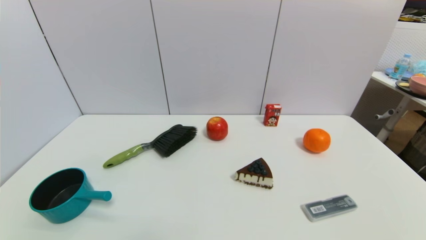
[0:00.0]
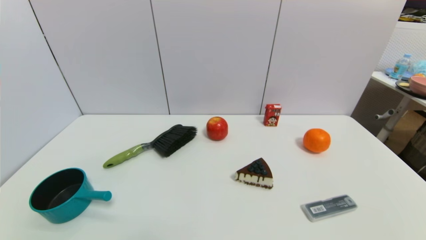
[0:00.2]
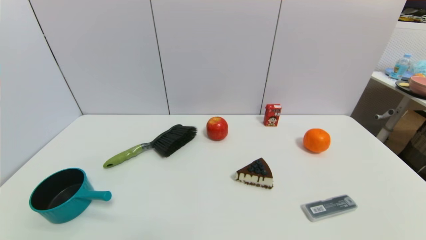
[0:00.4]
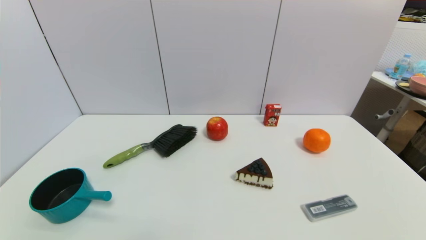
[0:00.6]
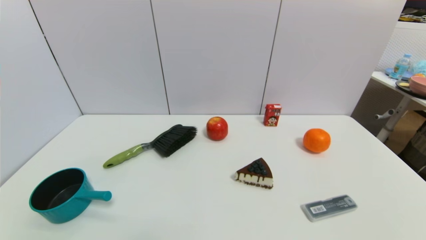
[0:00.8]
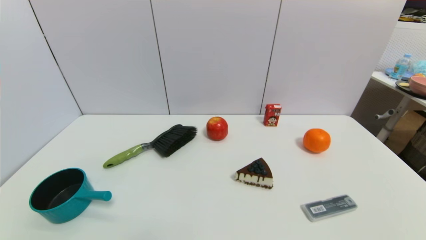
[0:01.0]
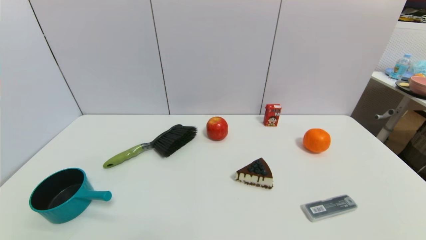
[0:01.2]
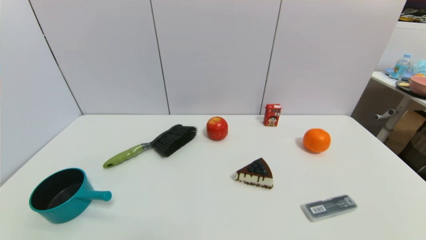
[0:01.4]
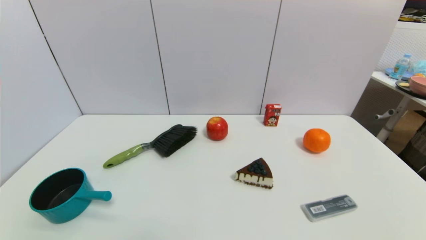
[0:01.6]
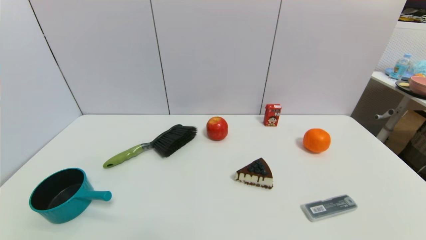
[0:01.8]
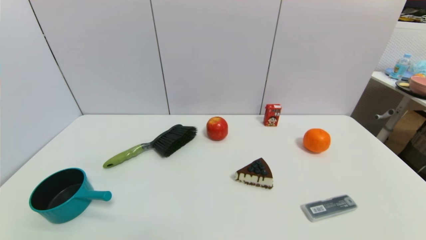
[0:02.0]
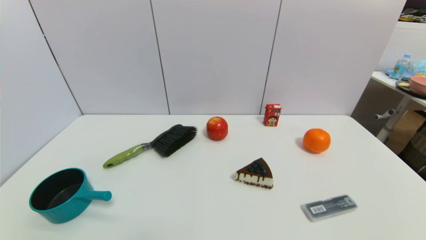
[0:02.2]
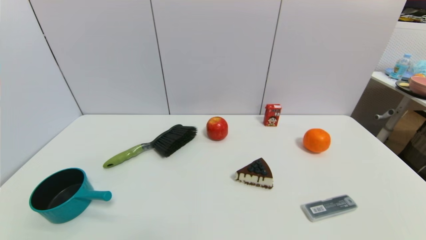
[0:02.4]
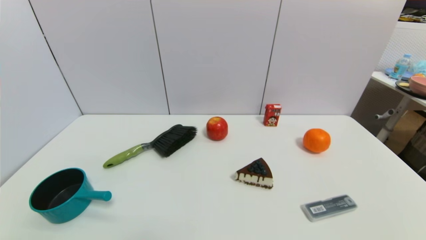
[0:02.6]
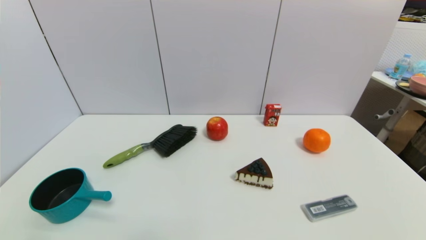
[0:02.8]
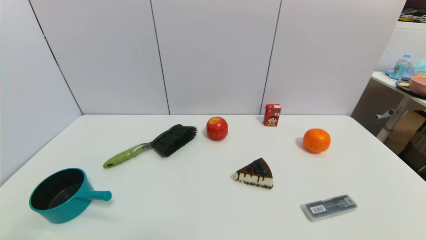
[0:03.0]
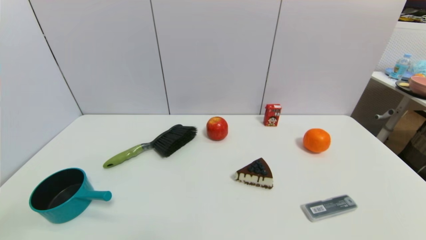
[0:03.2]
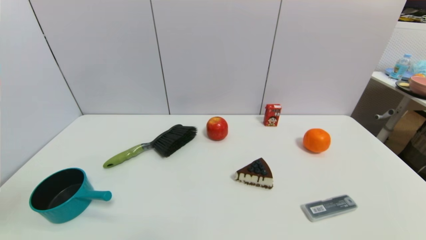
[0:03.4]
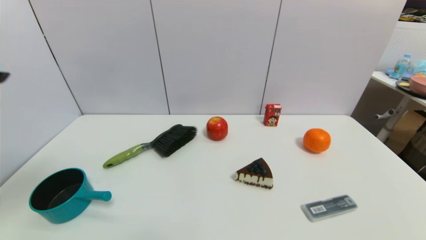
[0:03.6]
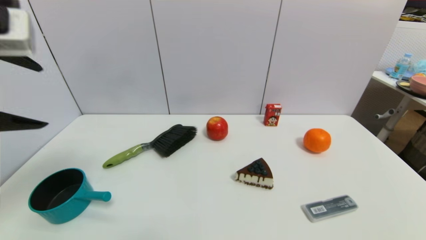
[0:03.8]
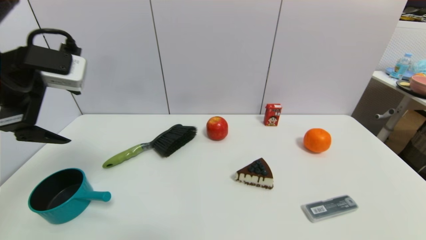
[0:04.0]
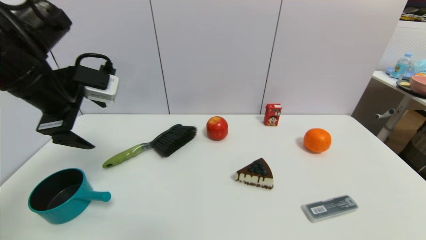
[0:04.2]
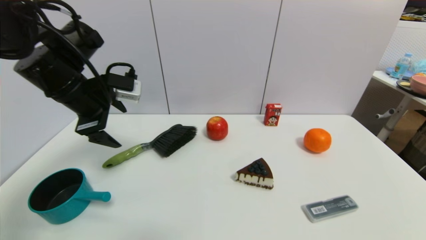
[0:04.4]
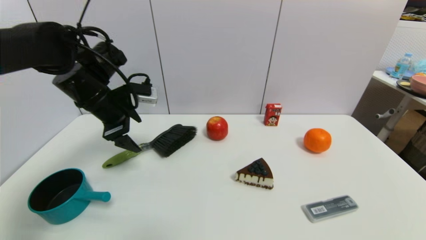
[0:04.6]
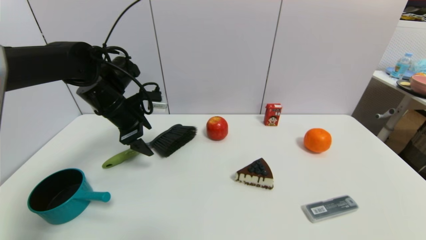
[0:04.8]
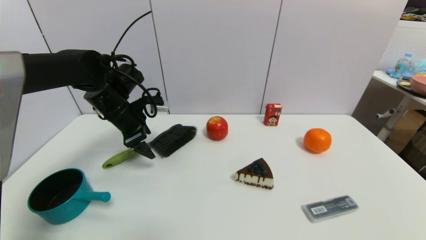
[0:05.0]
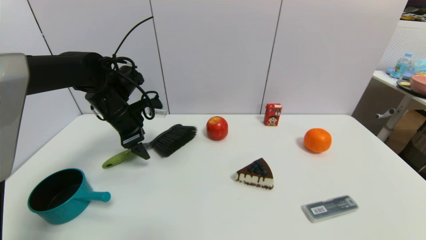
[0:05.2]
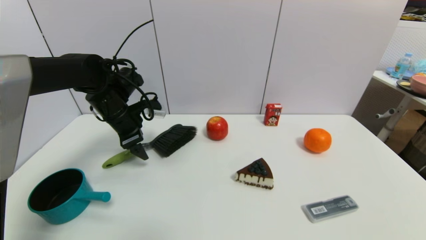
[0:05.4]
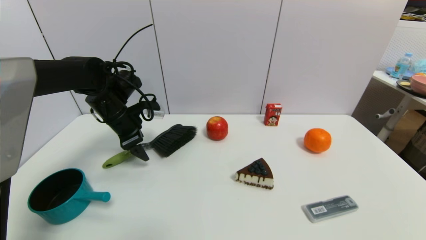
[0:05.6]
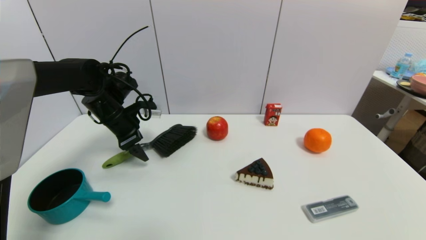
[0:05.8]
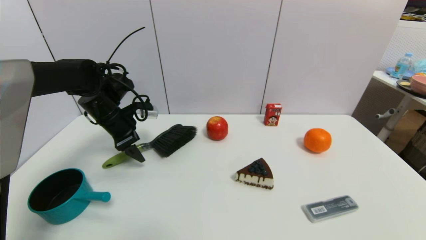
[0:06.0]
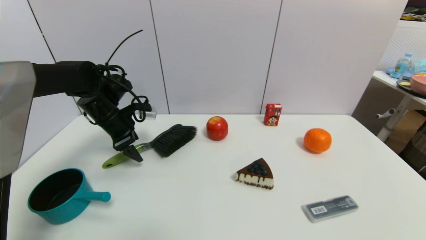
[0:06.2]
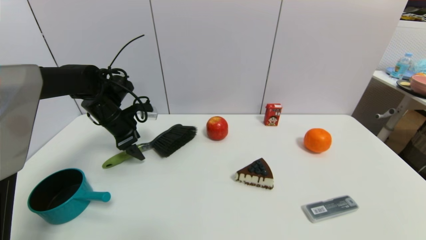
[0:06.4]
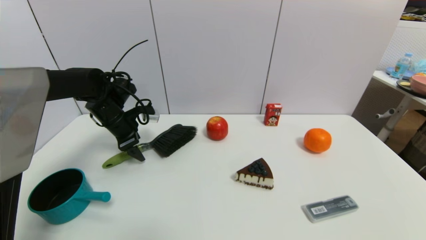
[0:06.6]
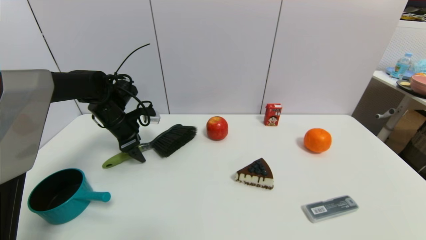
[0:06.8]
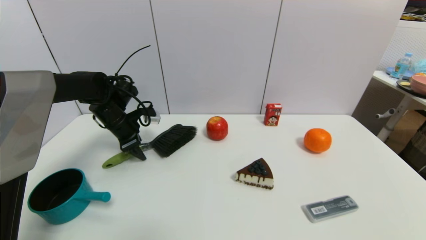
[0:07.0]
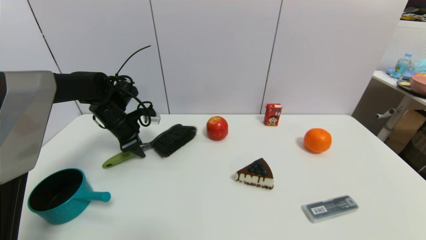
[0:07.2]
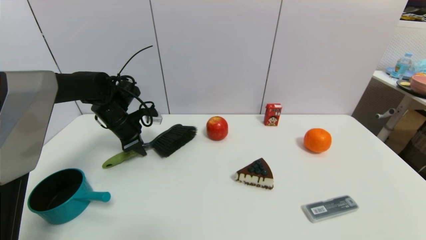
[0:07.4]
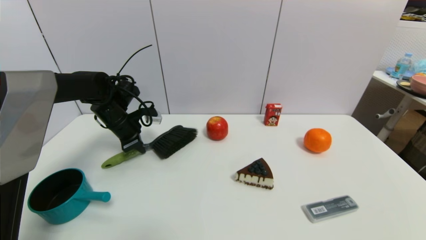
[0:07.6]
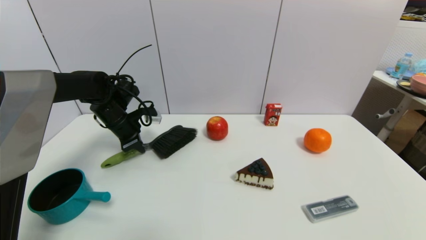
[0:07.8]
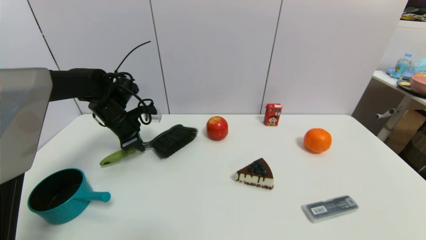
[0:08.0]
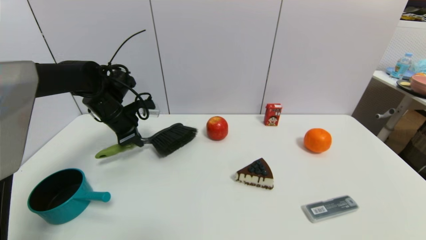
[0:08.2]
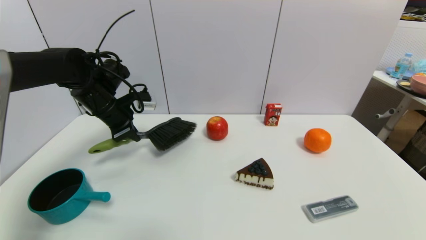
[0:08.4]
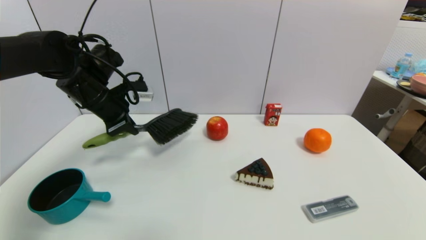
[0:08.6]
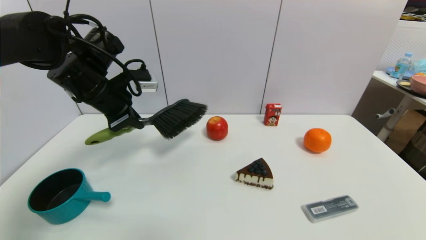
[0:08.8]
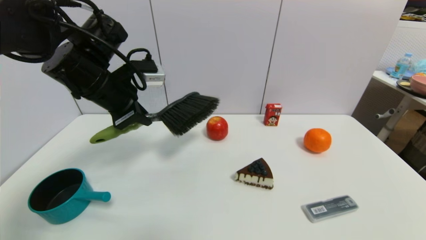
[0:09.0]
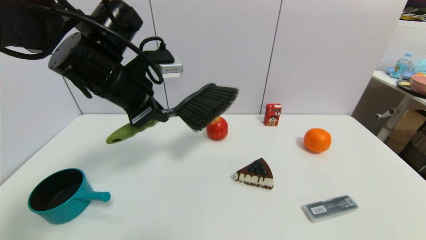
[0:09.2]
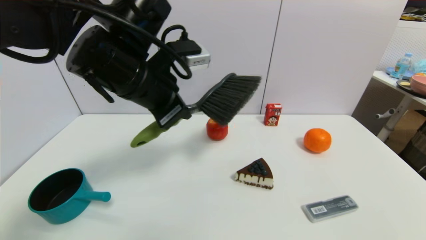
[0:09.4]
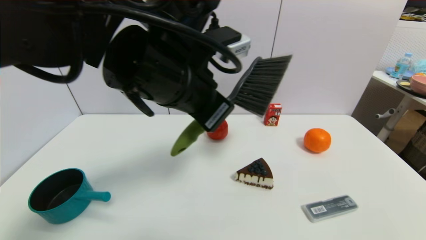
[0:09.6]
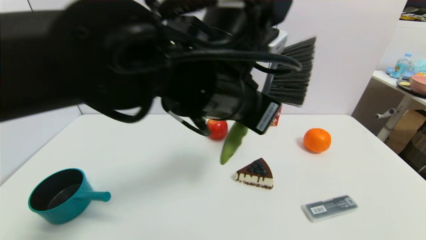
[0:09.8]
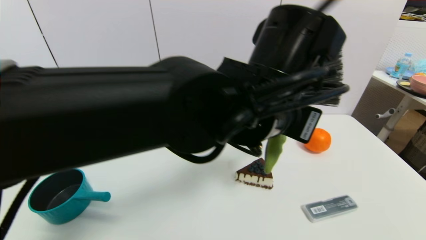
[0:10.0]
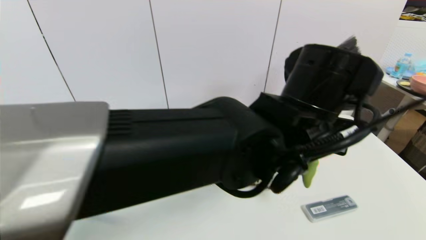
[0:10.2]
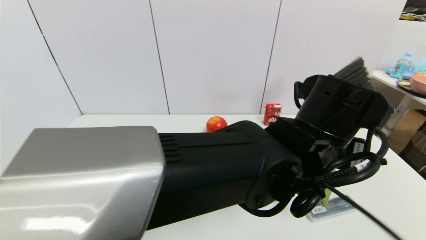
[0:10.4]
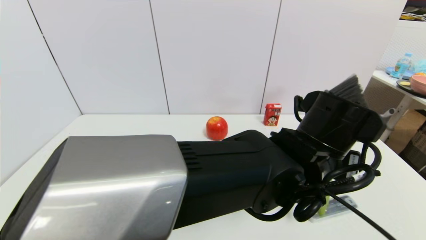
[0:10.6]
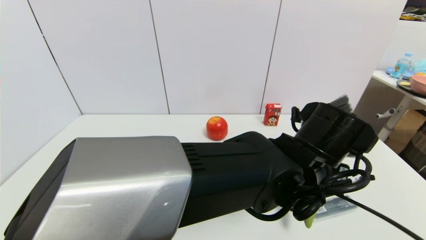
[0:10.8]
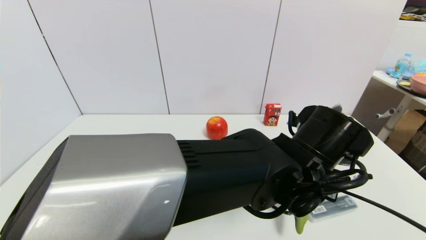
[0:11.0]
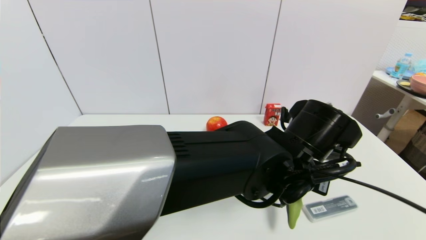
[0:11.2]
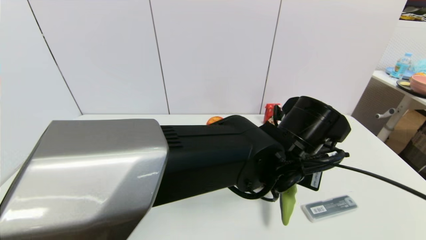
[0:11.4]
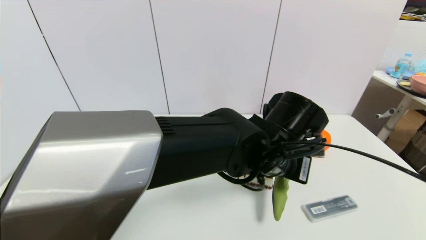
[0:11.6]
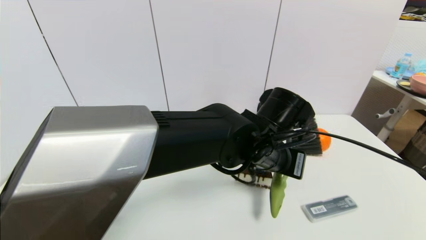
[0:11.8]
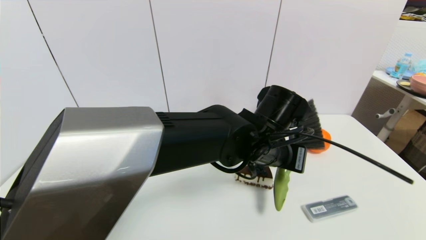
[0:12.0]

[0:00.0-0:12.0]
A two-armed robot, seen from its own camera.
Task of the whole recording: put the brush in the designated position.
Step, 0:02.4 to 0:07.6: Grasp the brush with left gripper.
0:00.0 to 0:01.6: Neither gripper changes place.
0:03.0 to 0:04.4: The left gripper goes some 35 cm forward.
0:04.4 to 0:06.0: The left gripper heads downward and forward, covering some 15 cm.
0:06.0 to 0:07.6: The left gripper closes its fingers.
0:07.6 to 0:09.0: The left gripper travels upward, backward and to the right by about 20 cm.
0:09.0 to 0:10.4: The left gripper shifts roughly 30 cm to the right.
0:10.4 to 0:12.0: The left gripper heads forward, covering approximately 5 cm.

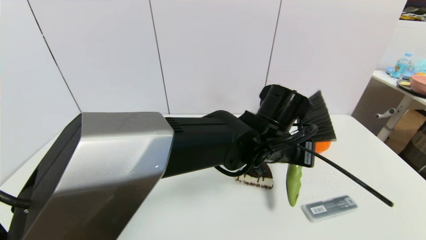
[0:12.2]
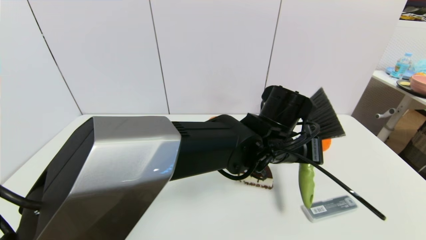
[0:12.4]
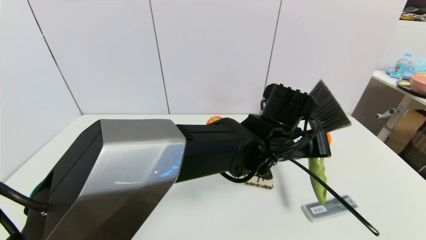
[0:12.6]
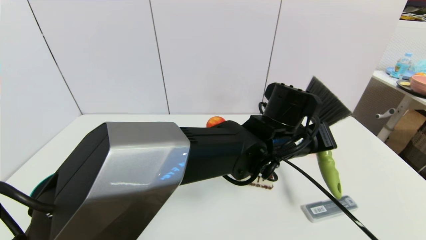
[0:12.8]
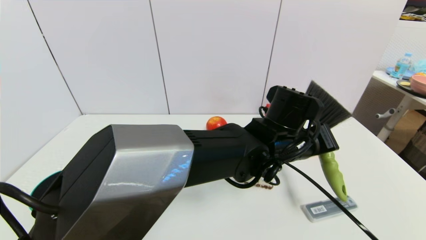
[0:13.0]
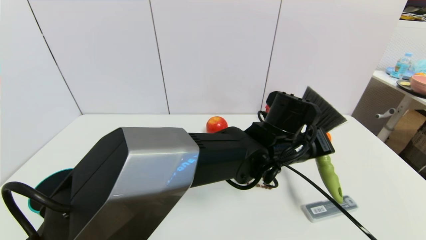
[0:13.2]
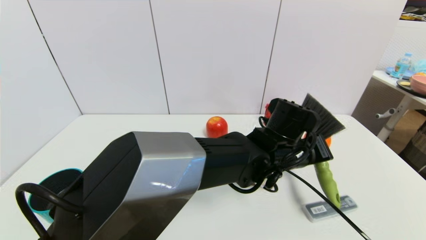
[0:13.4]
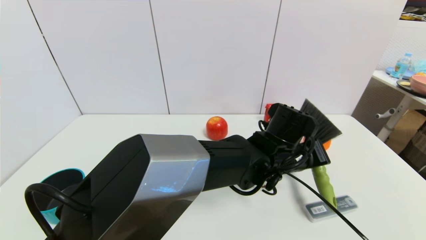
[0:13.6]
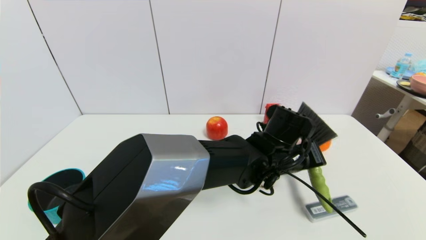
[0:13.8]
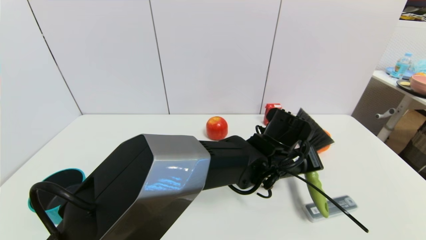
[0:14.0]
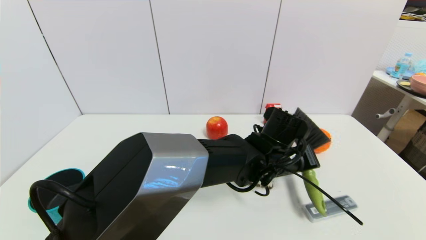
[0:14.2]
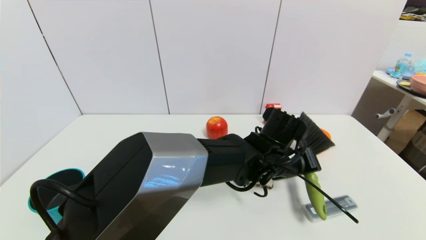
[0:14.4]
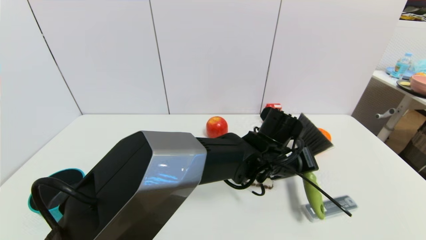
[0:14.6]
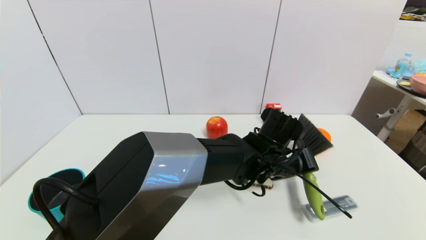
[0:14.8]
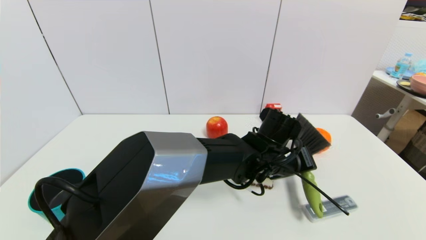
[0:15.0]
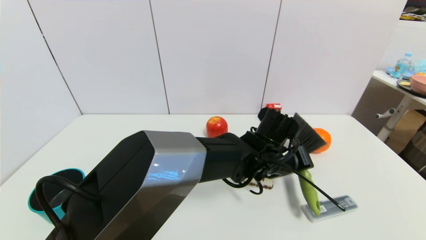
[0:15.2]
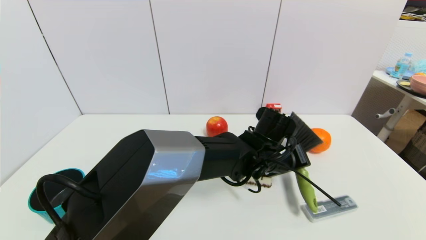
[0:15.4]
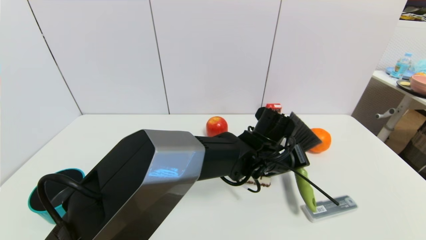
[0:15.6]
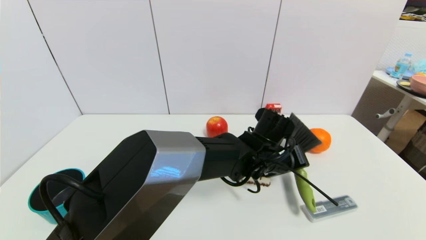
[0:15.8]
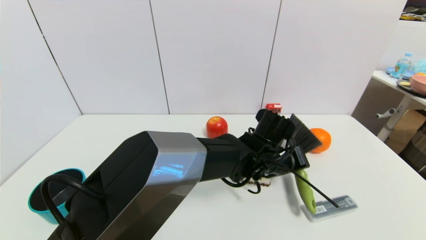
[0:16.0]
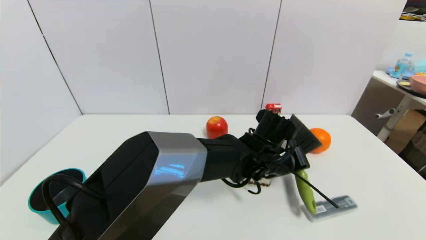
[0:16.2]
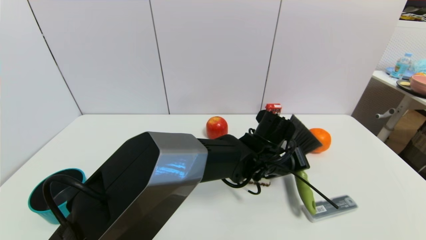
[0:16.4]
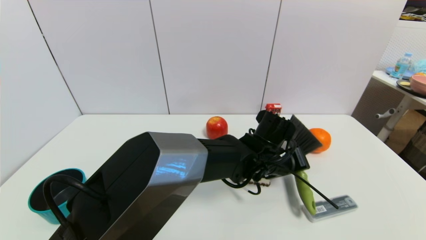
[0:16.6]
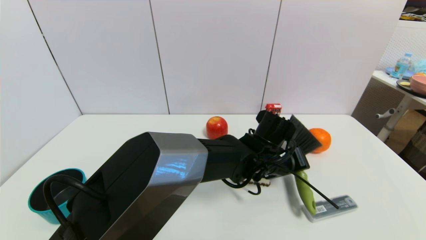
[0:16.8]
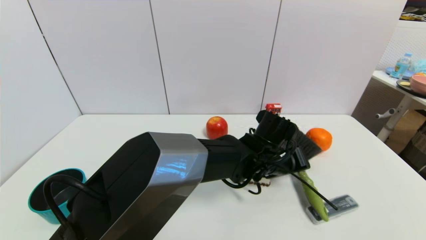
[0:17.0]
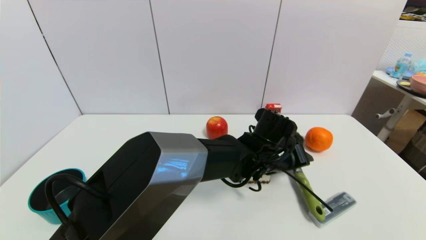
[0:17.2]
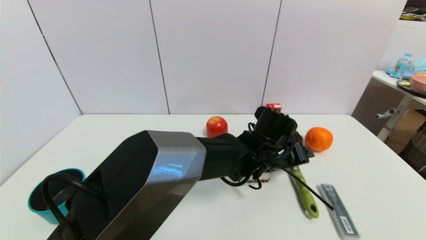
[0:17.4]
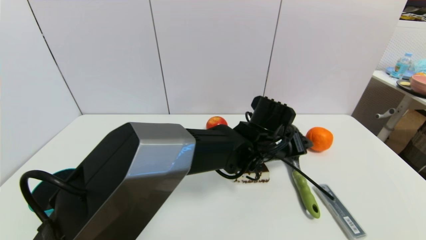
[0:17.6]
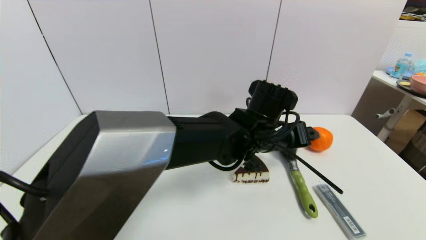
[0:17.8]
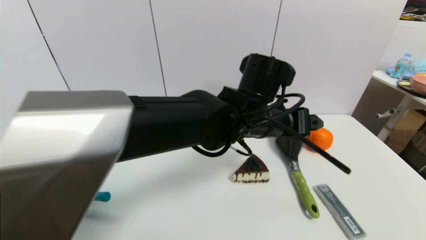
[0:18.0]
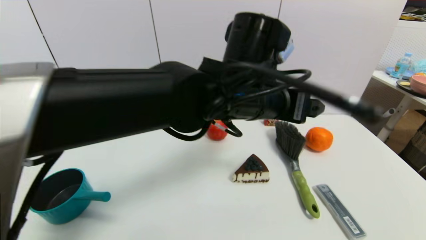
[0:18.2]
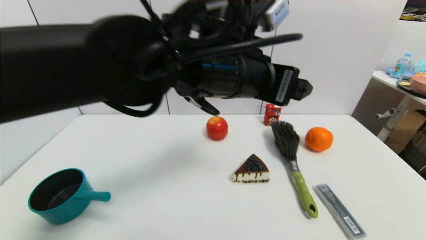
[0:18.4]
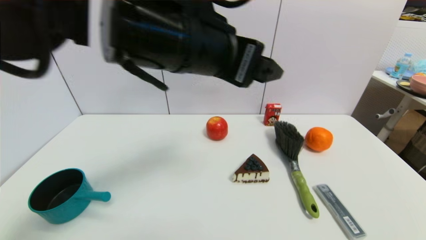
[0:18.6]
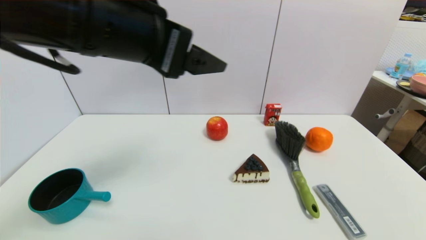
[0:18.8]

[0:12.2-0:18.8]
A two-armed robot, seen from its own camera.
Task of the whole recording: put the brush in the designated position.
Step, 0:12.2 to 0:17.4: Place the brush on the table with left gripper.
0:12.2 to 0:13.8: The left gripper changes place by approximately 5 cm.
0:13.8 to 0:15.4: The grippers make only small movements.
0:15.4 to 0:17.2: The left gripper opens.
0:17.2 to 0:18.8: The left gripper goes some 35 cm upward and to the left, and opens.
